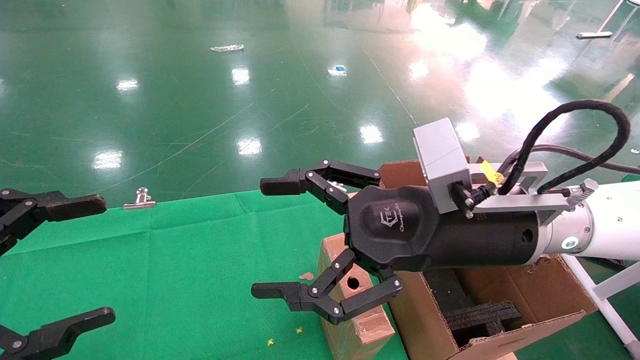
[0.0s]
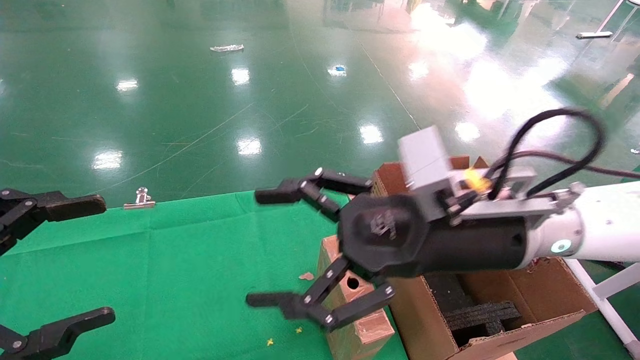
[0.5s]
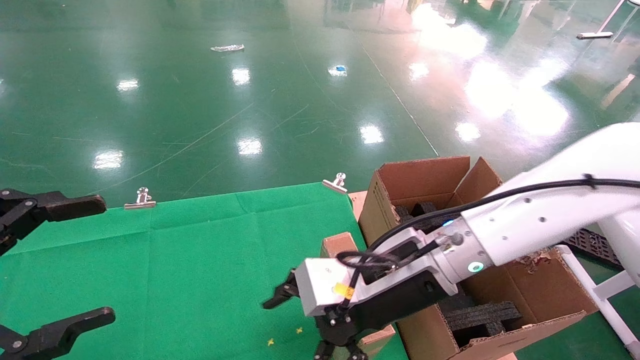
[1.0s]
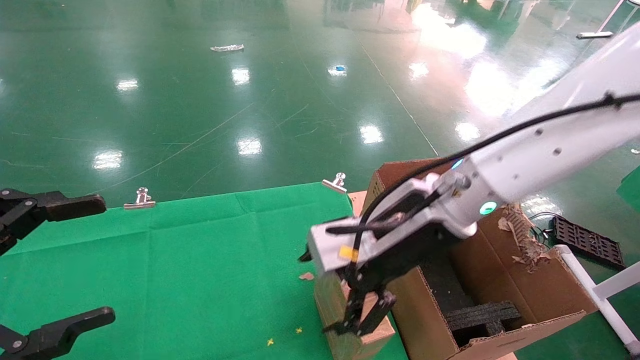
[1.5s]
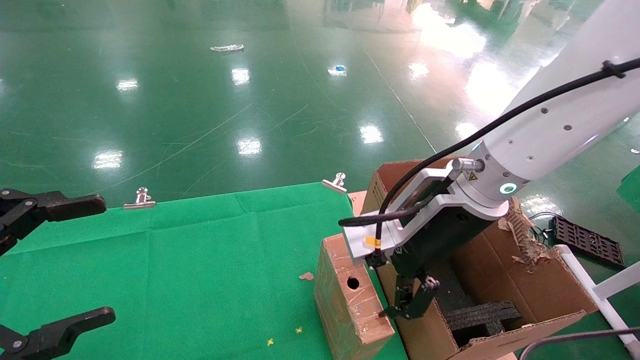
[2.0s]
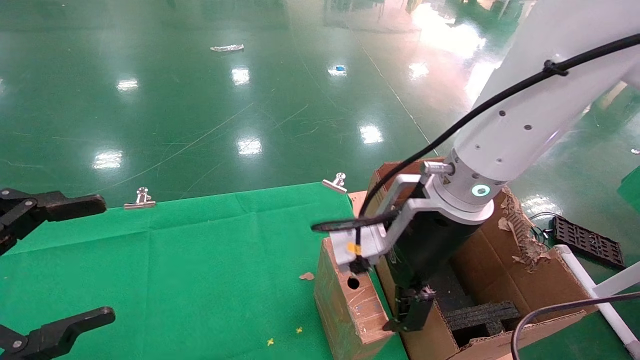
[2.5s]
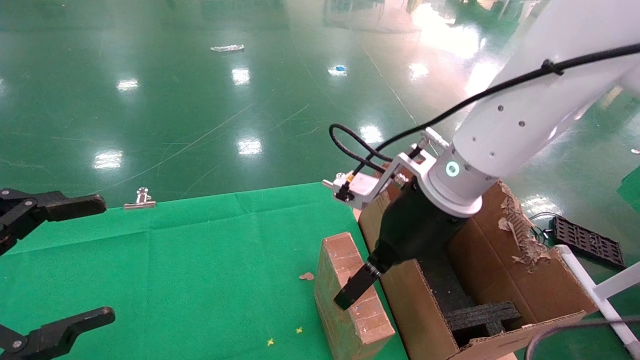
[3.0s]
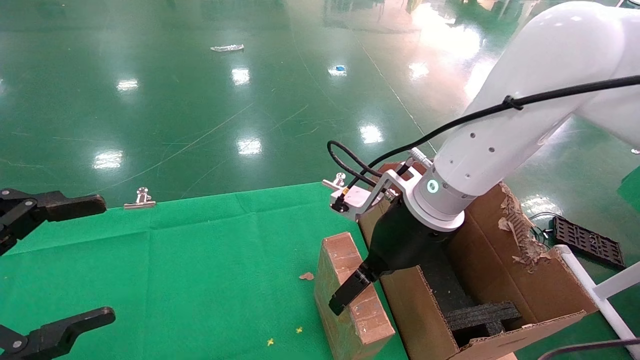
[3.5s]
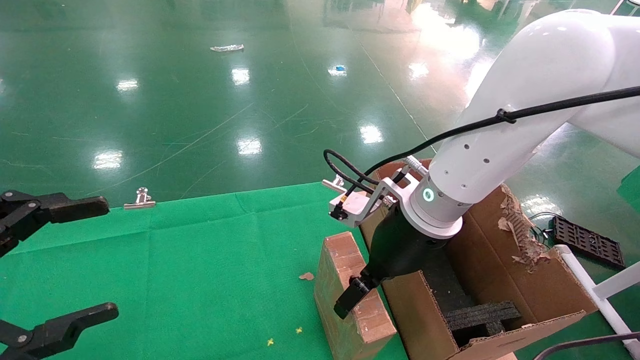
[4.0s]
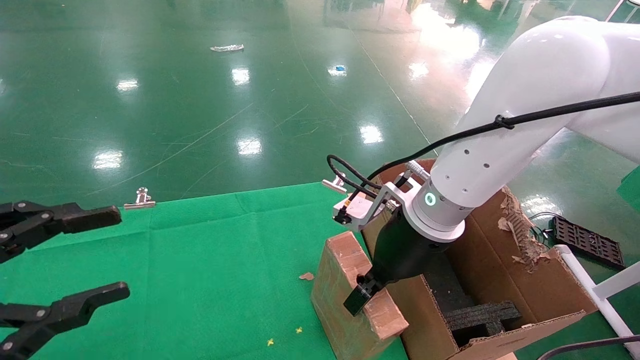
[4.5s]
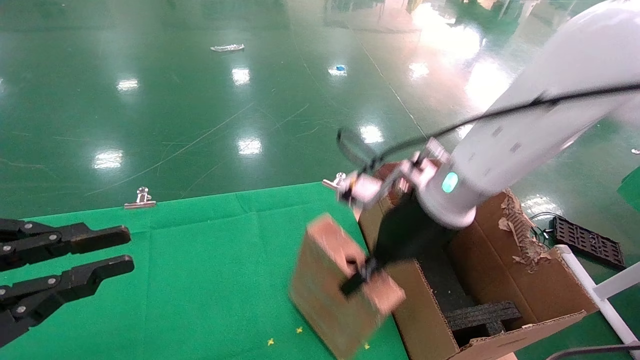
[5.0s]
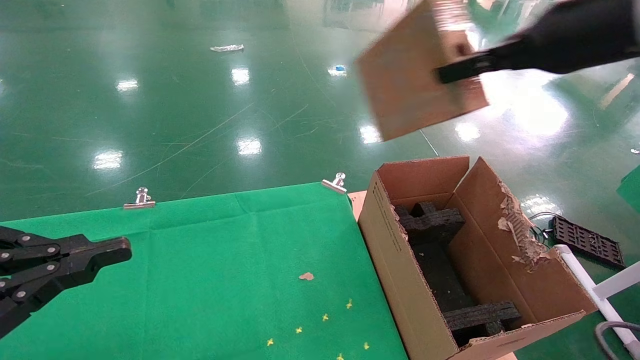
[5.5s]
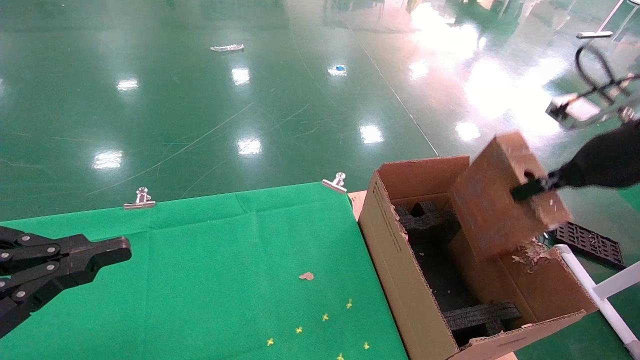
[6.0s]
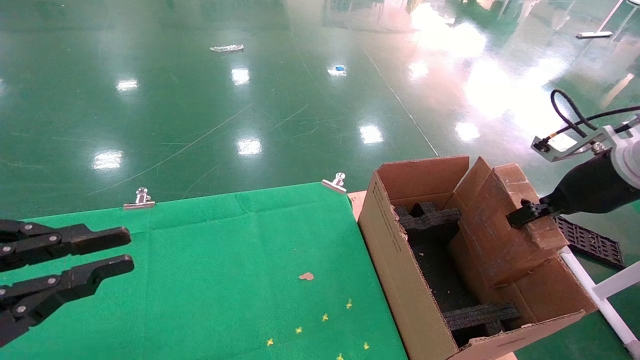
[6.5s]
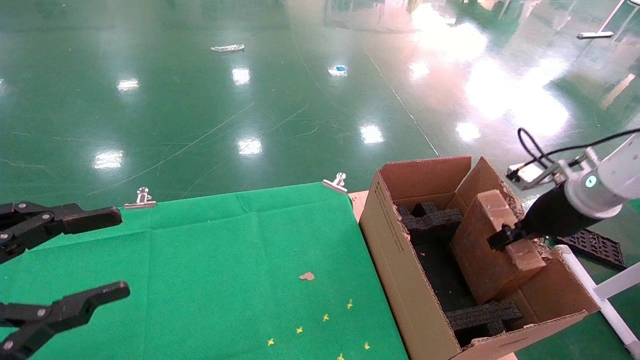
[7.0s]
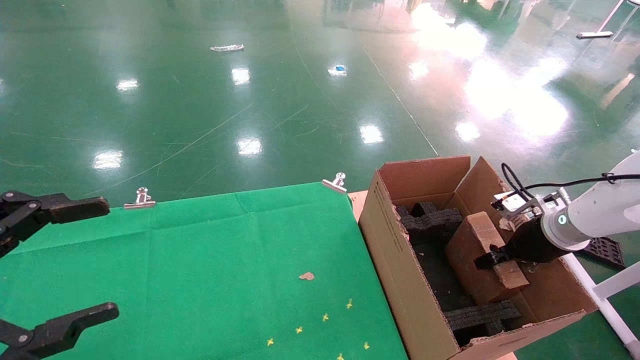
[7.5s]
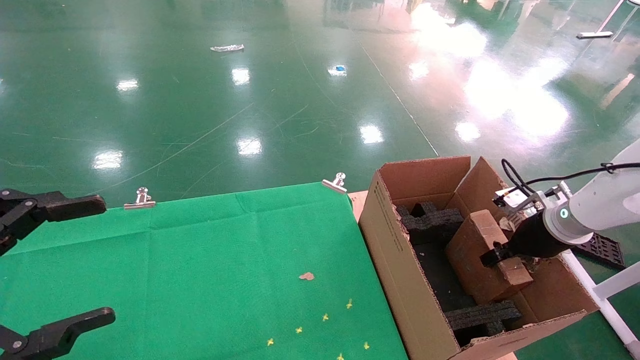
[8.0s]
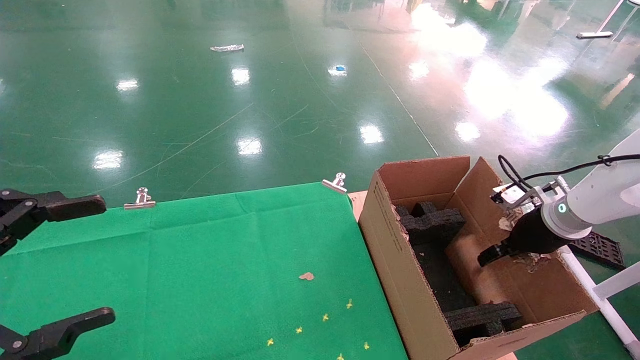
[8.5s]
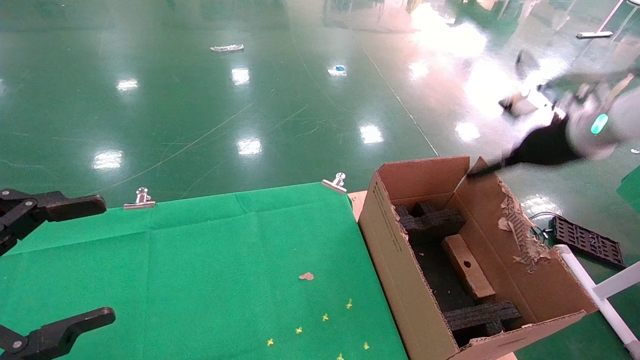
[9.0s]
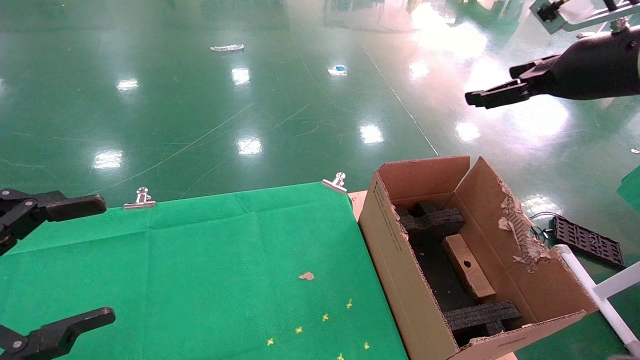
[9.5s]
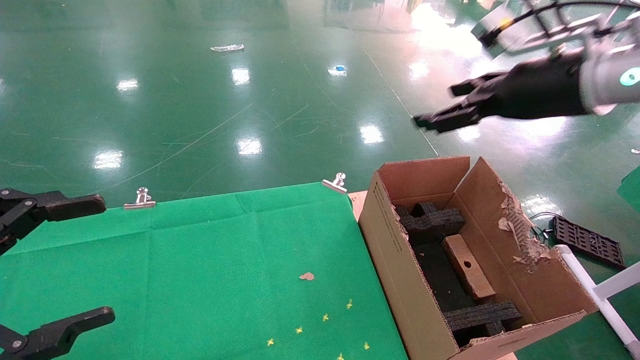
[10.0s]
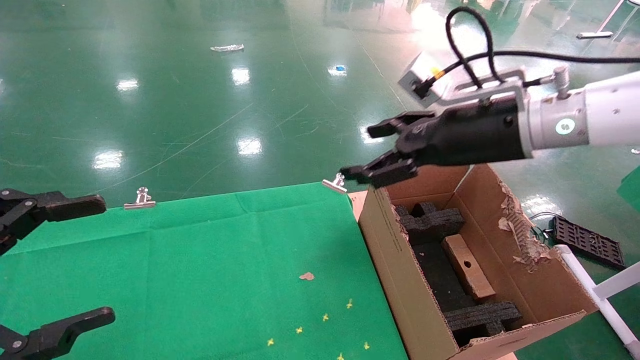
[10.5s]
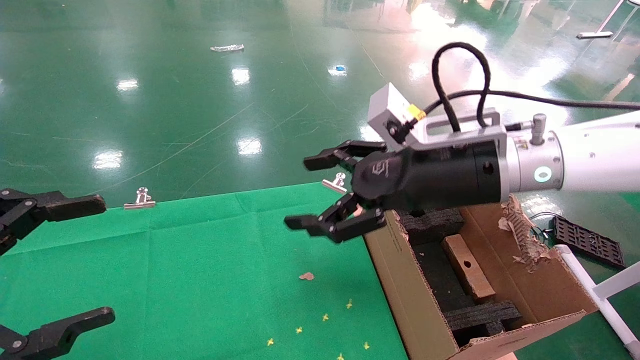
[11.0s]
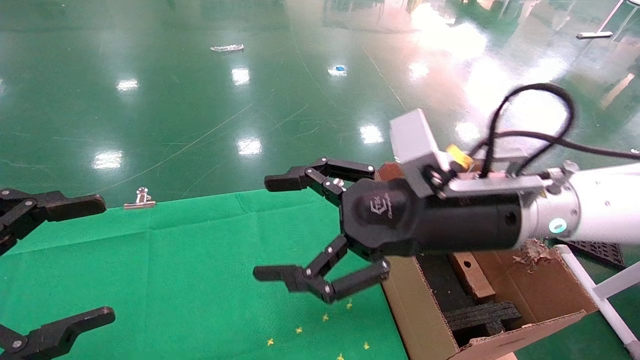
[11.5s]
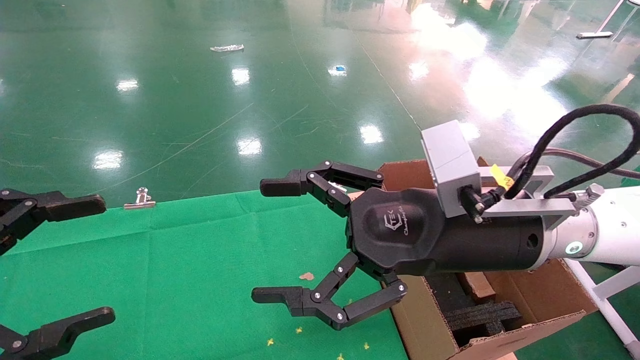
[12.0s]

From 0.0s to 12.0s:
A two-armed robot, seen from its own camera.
Task of the whole recording: using a robotic arm to pick up a cardboard box and palace it the carton.
Step, from 1.0s to 4.5s: Pick up the mouse and the power cord paper box.
Step, from 5.0s to 9.0s: Place the mouse and the power cord paper box into the container.
From 0.0s to 2.0s: The right gripper is displaced forward by approximately 5 cm.
From 2.0s to 4.0s: The right gripper shifts by approximately 5 cm.
From 4.0s to 6.0s: The left gripper closes up; the right gripper goes approximately 25 cm to the right, and closes up.
From 6.0s to 8.0s: The left gripper opens its fingers, while the right gripper travels downward and forward by about 20 cm.
From 8.0s to 10.0s: The right gripper moves upward and to the left, some 25 cm, and opens its fingers.
From 10.0s to 12.0s: The right gripper shifts approximately 20 cm to the left, downward and backward.

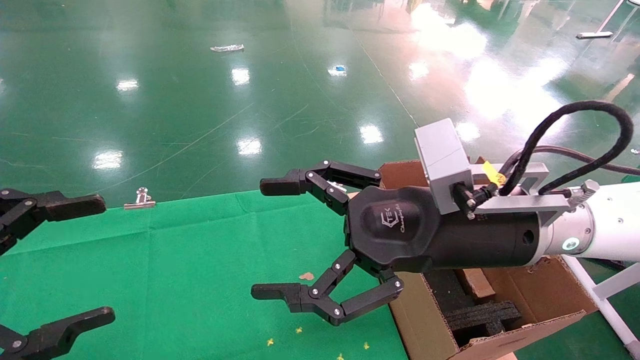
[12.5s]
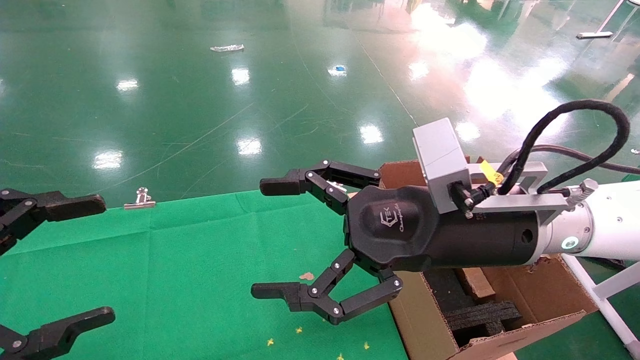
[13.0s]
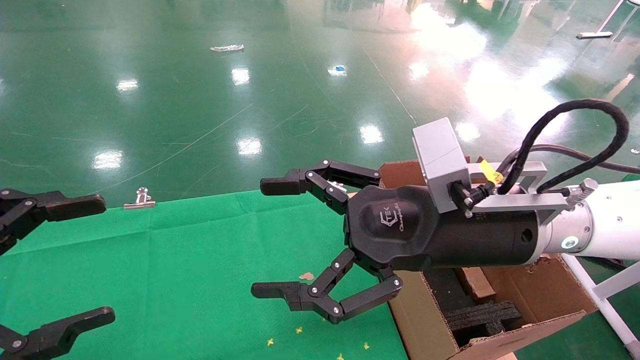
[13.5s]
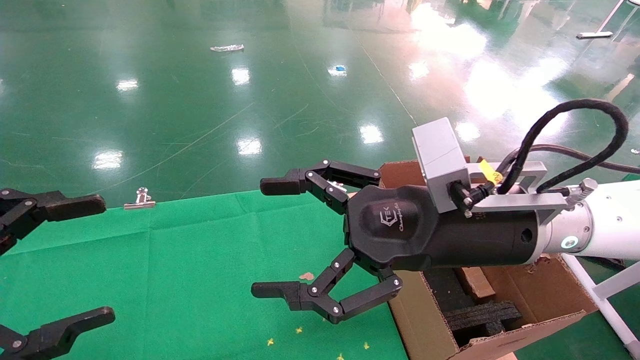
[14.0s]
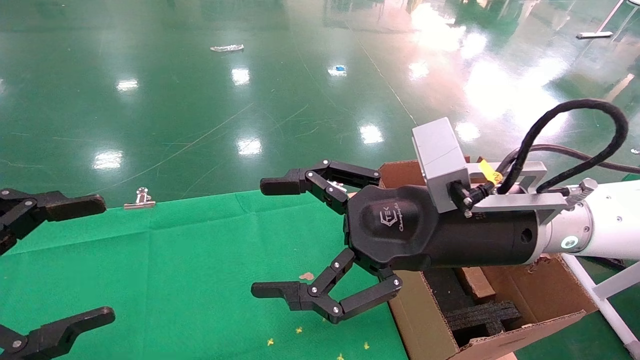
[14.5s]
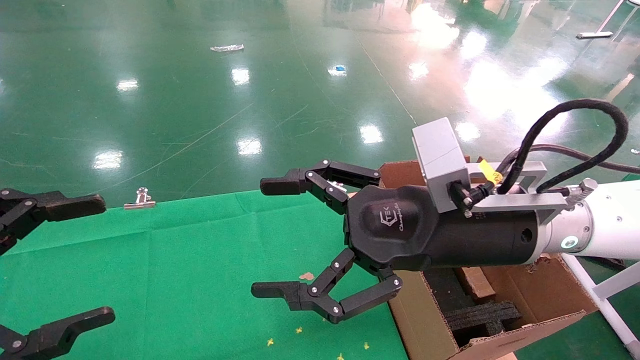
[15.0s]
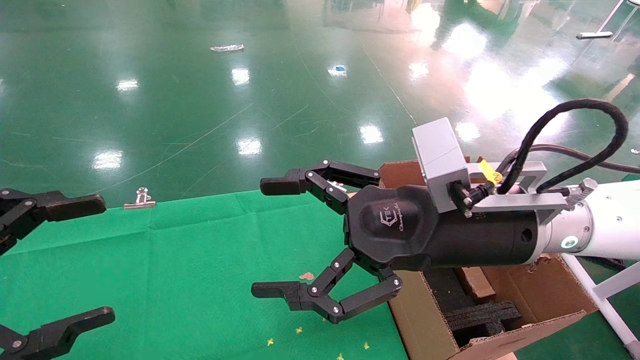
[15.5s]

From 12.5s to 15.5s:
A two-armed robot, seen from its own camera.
Task of the whole recording: using a robotic arm to pick up a cardboard box and palace it the carton.
From 12.5s to 15.5s: The two grippers keep their place.
